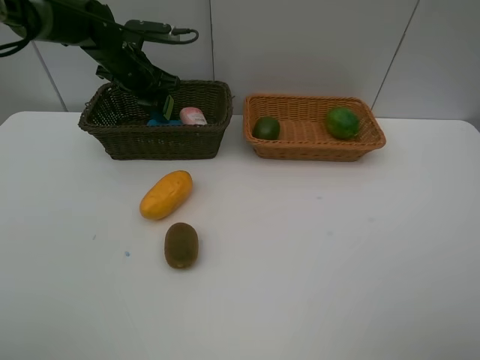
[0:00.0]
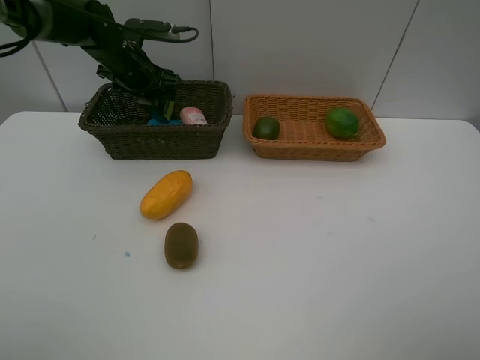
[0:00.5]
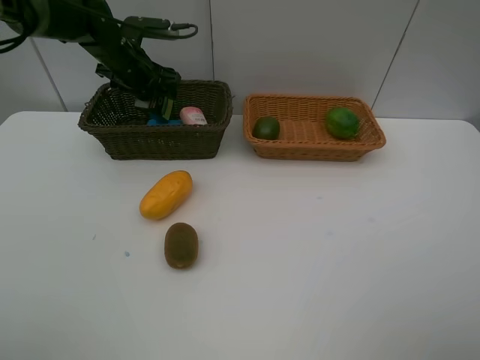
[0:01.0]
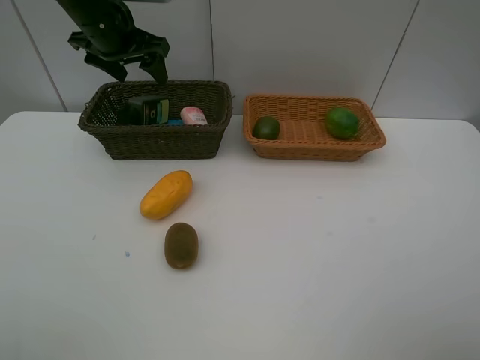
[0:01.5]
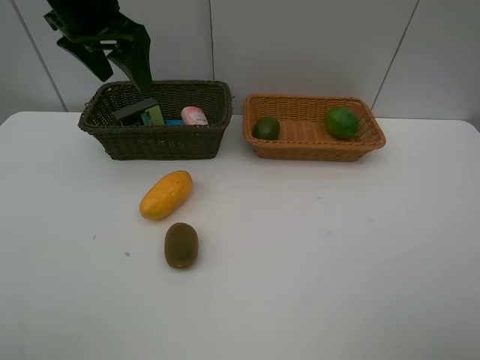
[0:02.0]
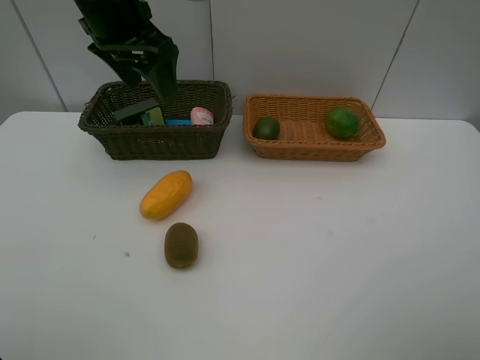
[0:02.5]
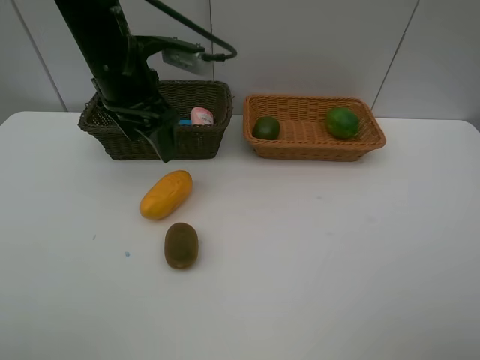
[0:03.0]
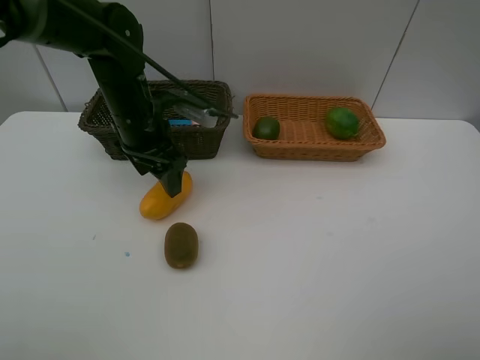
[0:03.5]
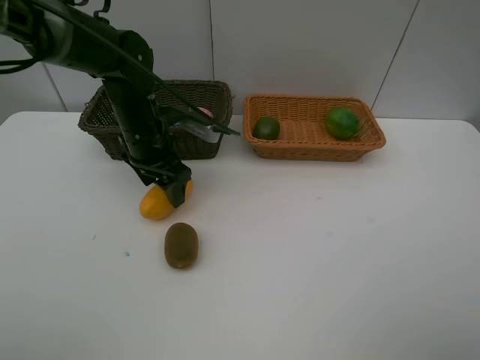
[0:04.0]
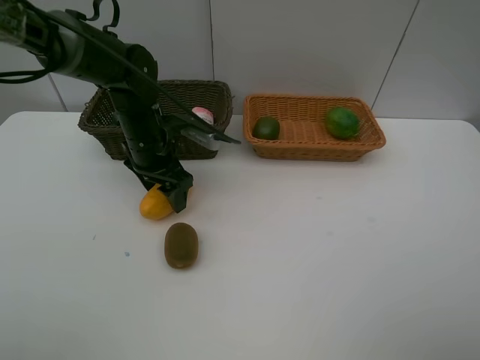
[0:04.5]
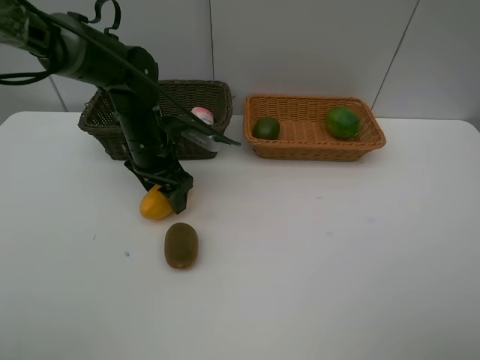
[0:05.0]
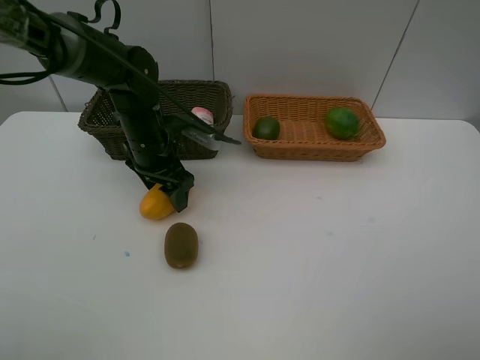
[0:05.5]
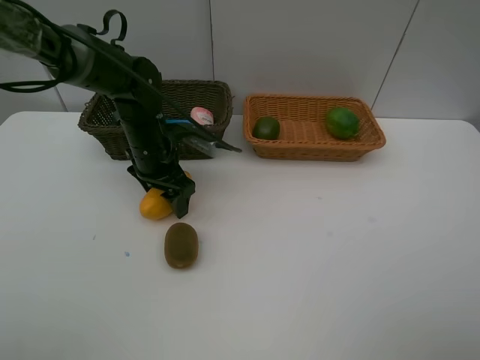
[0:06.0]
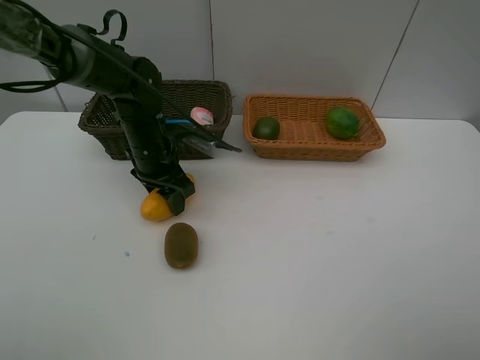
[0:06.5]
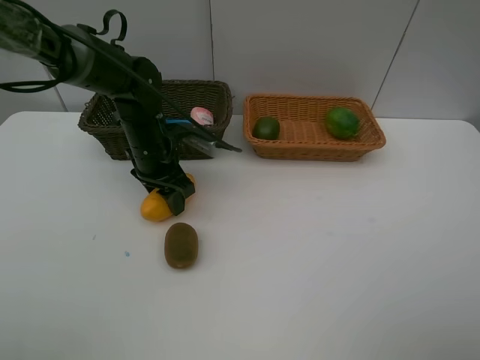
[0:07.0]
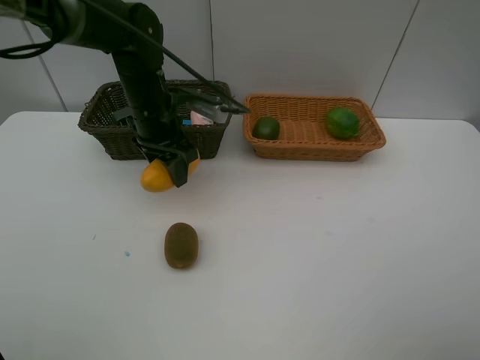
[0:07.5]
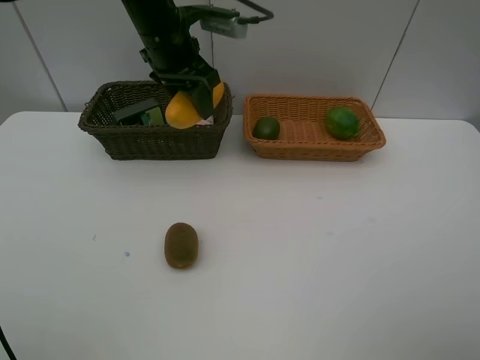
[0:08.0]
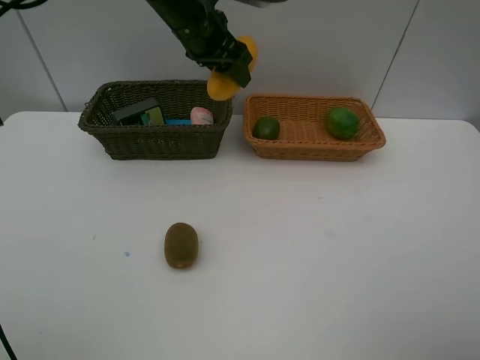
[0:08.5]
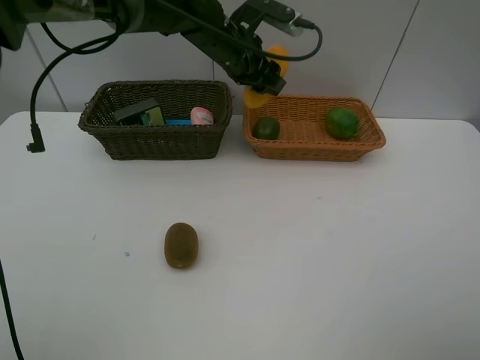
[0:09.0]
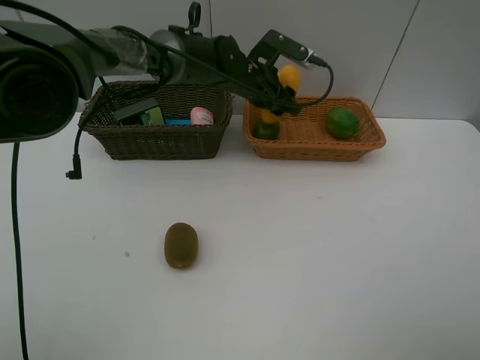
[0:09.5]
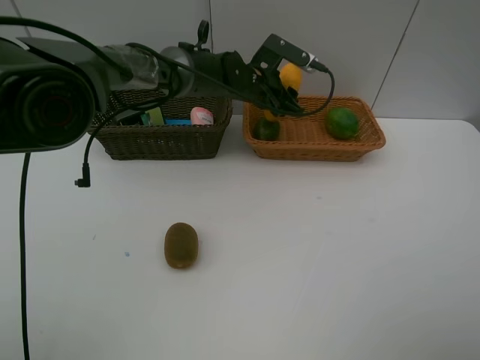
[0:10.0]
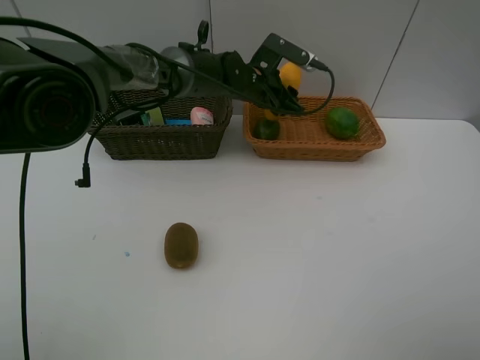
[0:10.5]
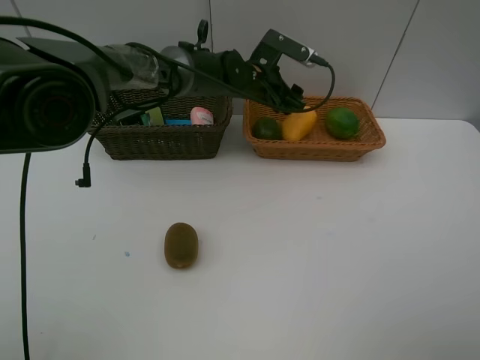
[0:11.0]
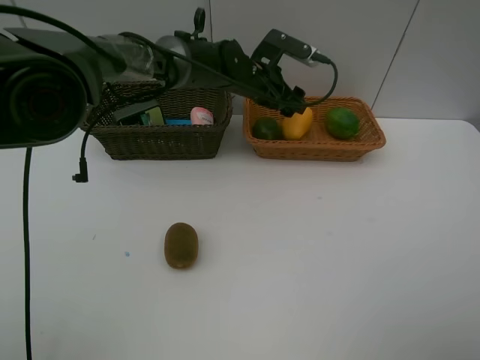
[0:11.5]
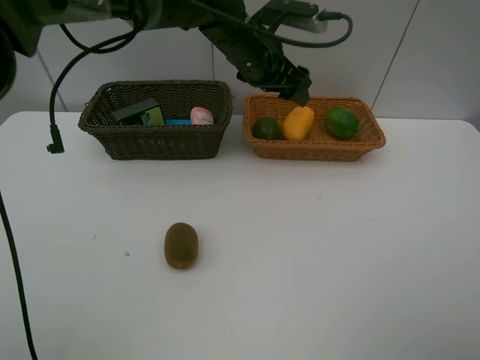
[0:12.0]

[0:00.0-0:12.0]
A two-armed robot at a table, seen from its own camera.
Task of the whole recording: Place multiple objects separately in different baskets.
Step, 0:01.5 to 0:07.0: Pick up mango with left gripper.
Step, 0:07.5 to 0:11.0: Place the mango in the light basket with left gripper.
0:00.0 to 0:02.0: The left gripper is displaced upward and backward by roughly 20 cm, and opens.
0:02.0 to 0:04.0: The left gripper goes roughly 20 cm downward.
0:04.0 to 0:06.0: There are only small adjustments of the grippers.
0:06.0 to 0:08.0: The left gripper heads upward, covering about 15 cm, and closes.
0:08.0 to 0:10.0: The left gripper goes roughly 15 cm to the right, downward and forward.
0:10.0 to 0:12.0: The left gripper is displaced upward by some 10 cm, and opens.

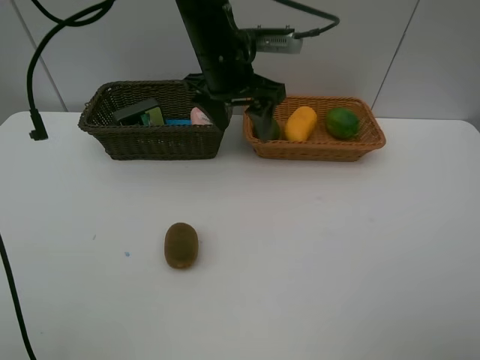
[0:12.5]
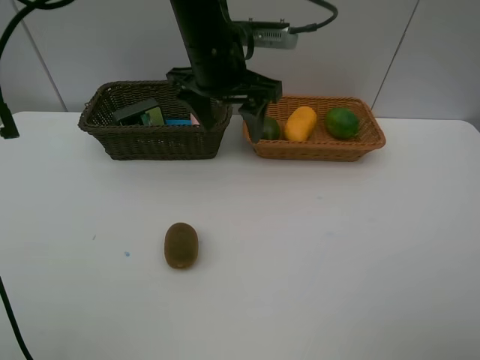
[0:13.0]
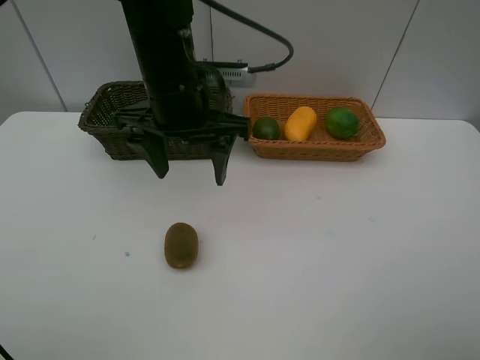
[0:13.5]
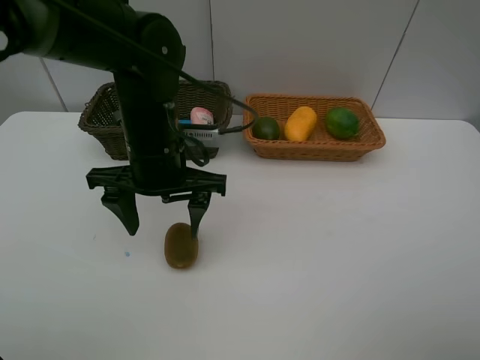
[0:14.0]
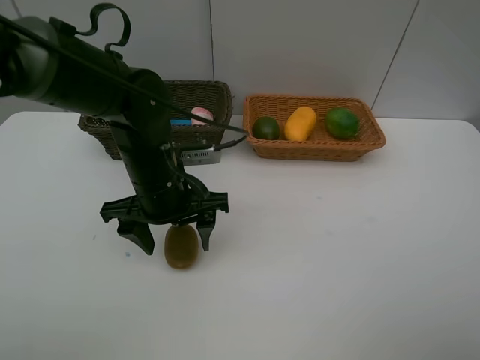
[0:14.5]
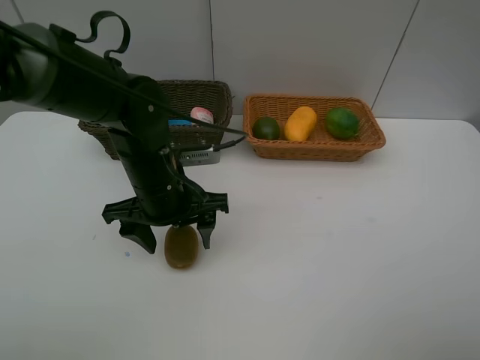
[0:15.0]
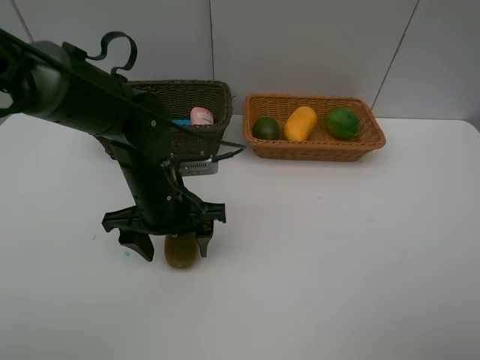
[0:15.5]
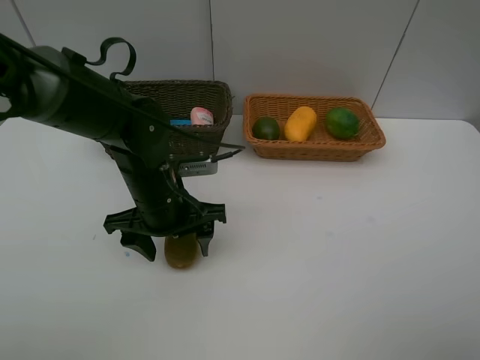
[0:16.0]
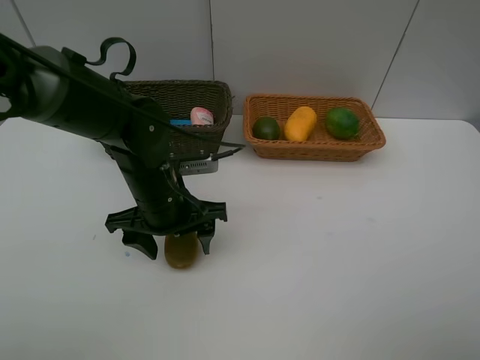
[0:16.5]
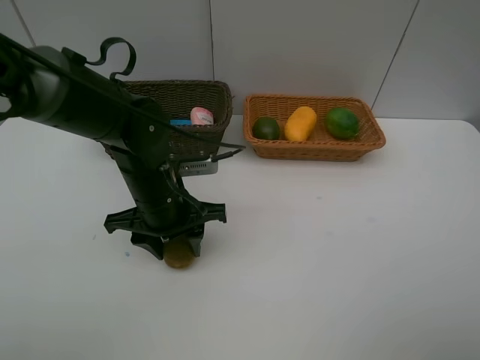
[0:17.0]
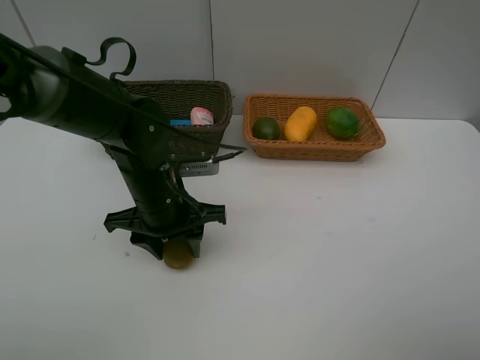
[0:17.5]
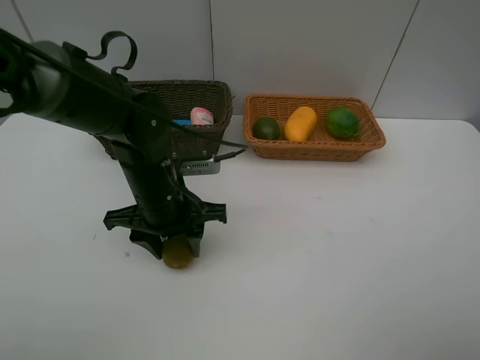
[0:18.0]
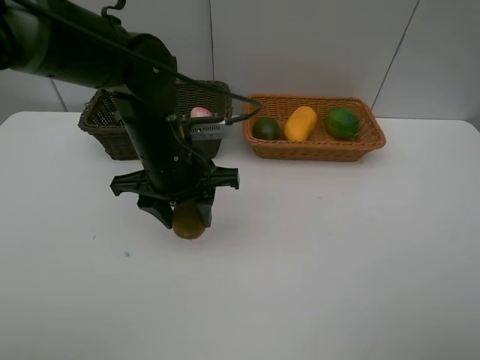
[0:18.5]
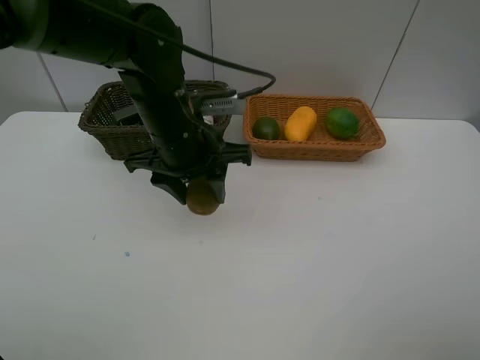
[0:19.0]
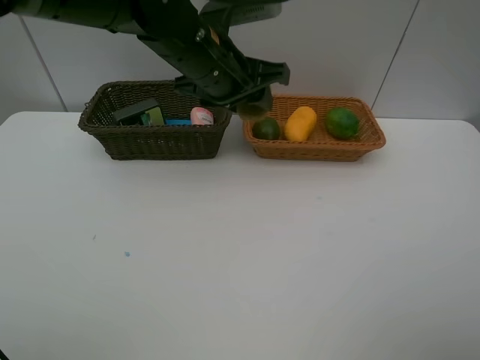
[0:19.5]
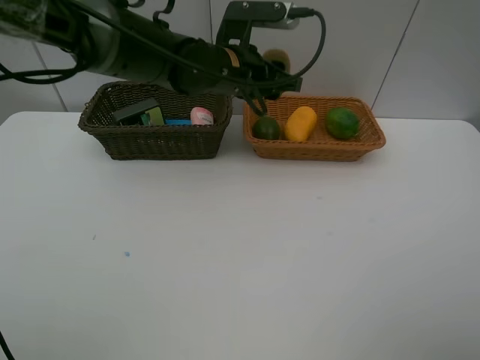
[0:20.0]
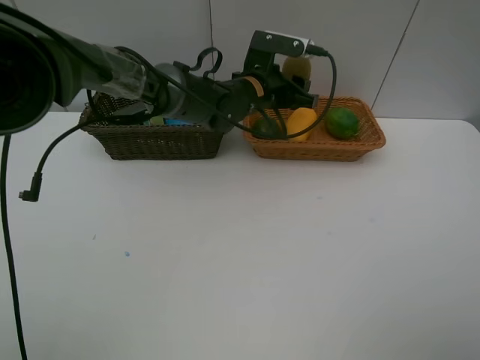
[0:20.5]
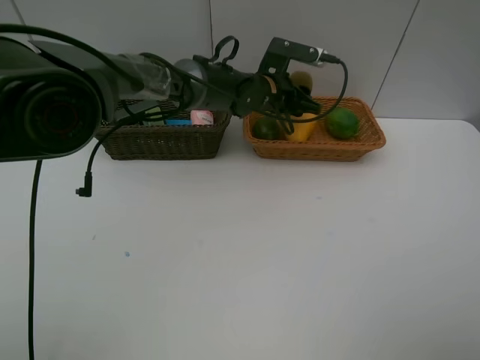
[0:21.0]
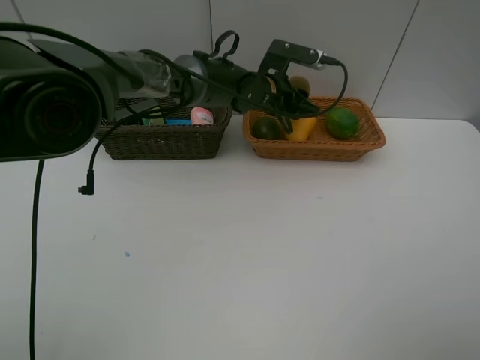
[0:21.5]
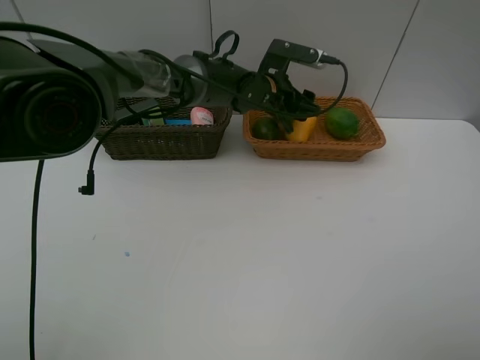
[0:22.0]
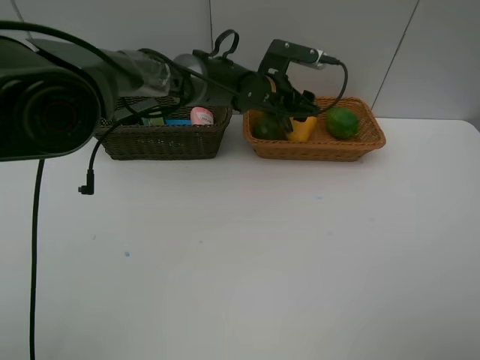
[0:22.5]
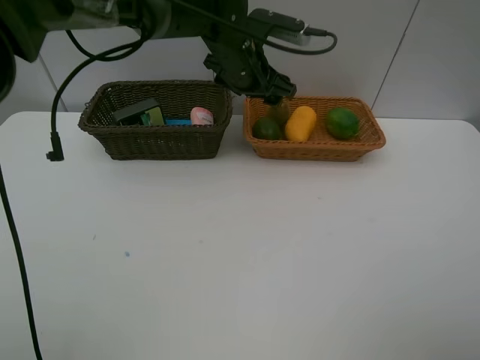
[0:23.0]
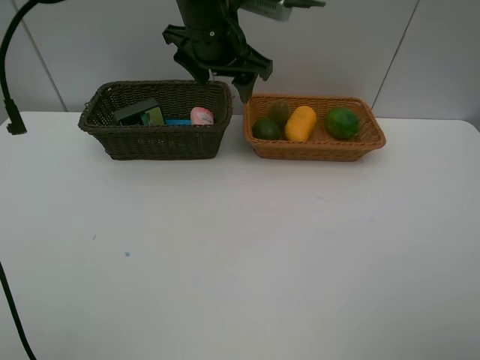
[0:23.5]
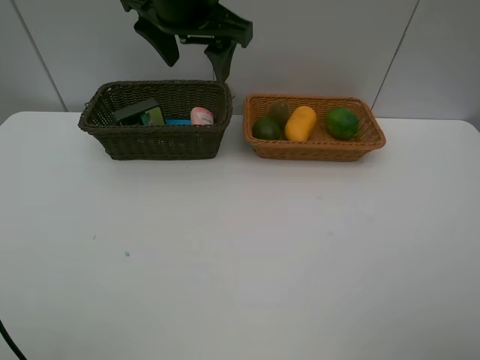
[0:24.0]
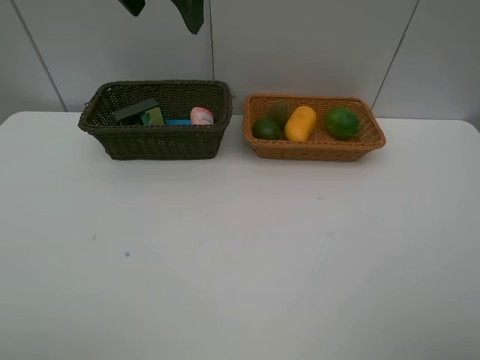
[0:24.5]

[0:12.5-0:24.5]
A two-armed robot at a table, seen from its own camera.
Task of the whole recording: Place multiple objects separately in different baskets.
Step, 0:12.5 to 0:18.0: Pick up kiwi with left gripper.
Step, 0:18.5 to 0:22.5: Place the kiwi in the light basket with left gripper.
0:12.5 to 0:14.5: The left gripper goes about 15 cm backward, downward and to the left.
0:14.5 to 0:16.5: The grippers move only a little.
0:16.5 to 0:18.5: The left gripper travels upward by some 5 cm, and closes its fingers.
0:18.5 to 0:20.5: The left gripper moves forward and to the right, roughly 20 cm.
0:20.5 to 0:22.5: The left gripper opens its fingers.
0:22.5 to 0:24.5: The left gripper heads upward, to the left and backward, covering approximately 35 cm.

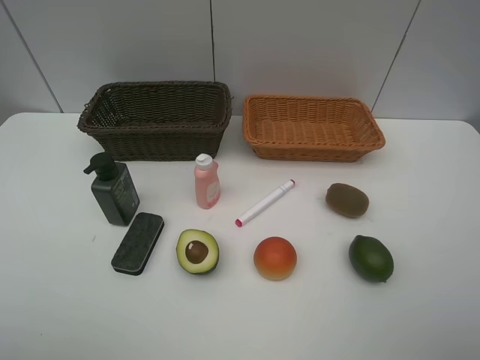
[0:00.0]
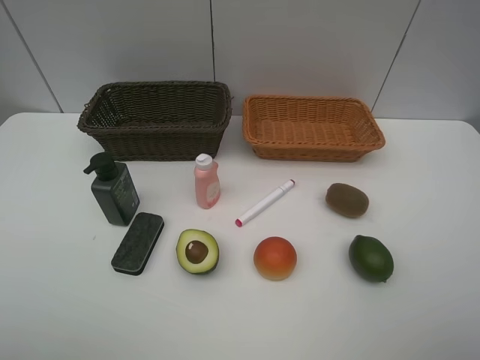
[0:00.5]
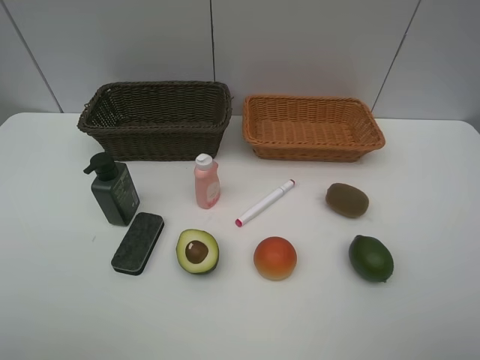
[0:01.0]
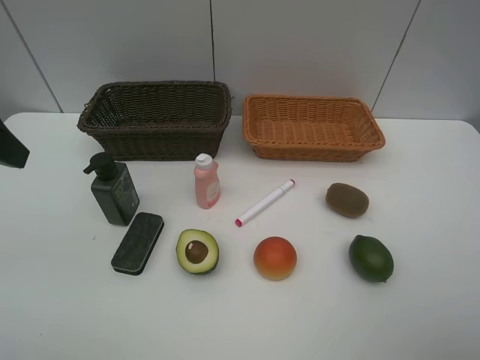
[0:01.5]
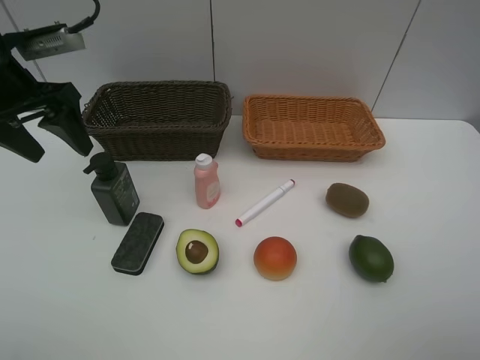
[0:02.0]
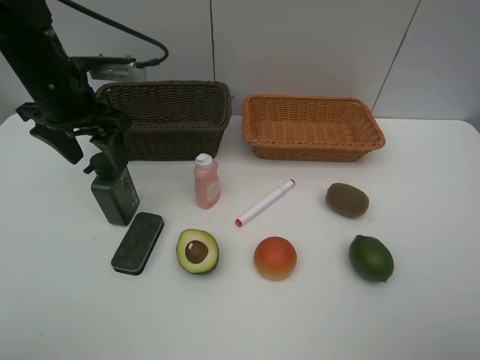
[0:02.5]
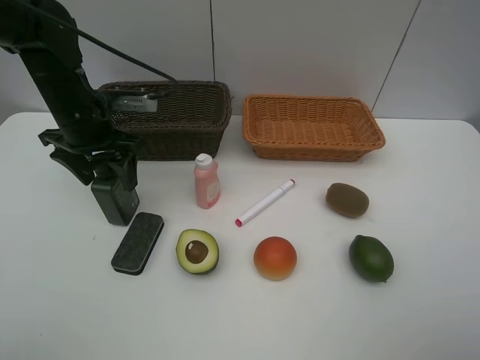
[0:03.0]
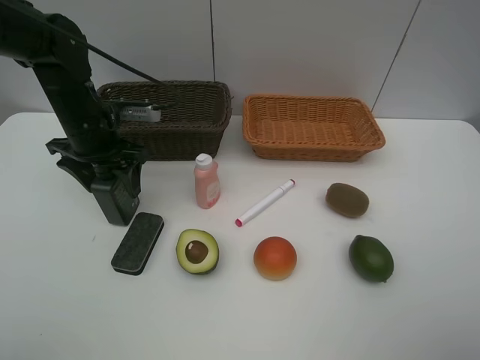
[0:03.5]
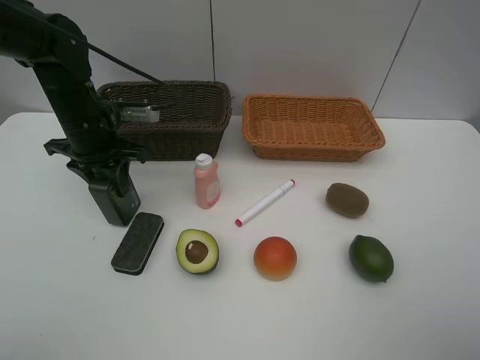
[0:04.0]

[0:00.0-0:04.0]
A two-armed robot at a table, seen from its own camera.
Task of the whole recording: Place multiple objects separately in different baskets.
0:00.0 to 0:02.0: The left gripper is displaced forward by about 30 cm.
0:02.0 to 0:04.0: The left gripper goes roughly 15 cm downward, to the right and forward, and closes.
